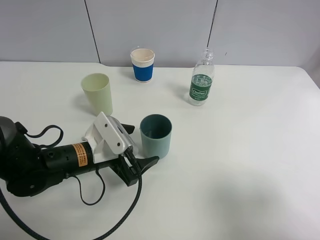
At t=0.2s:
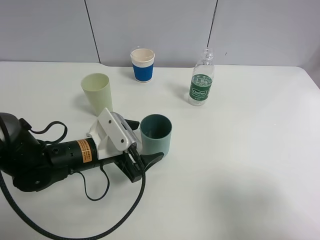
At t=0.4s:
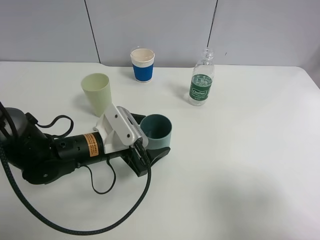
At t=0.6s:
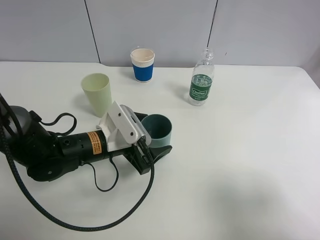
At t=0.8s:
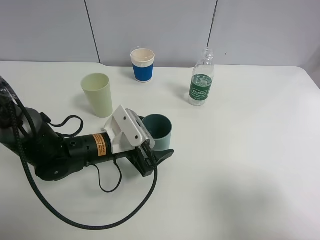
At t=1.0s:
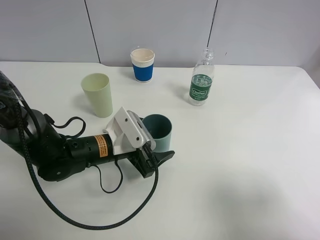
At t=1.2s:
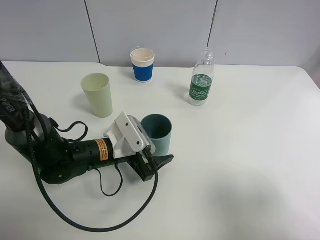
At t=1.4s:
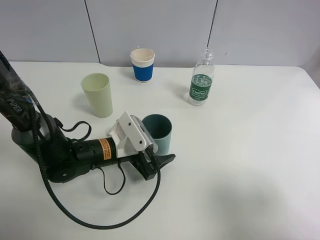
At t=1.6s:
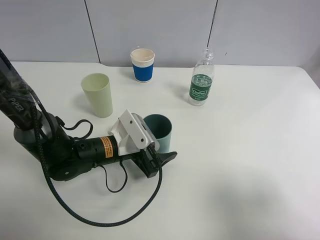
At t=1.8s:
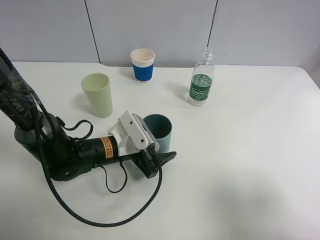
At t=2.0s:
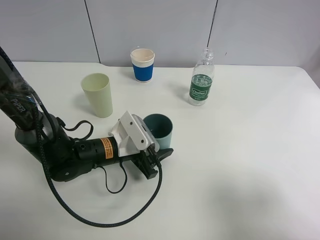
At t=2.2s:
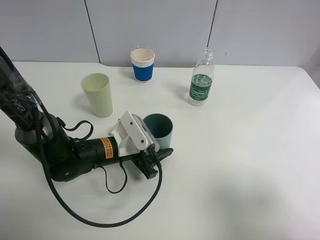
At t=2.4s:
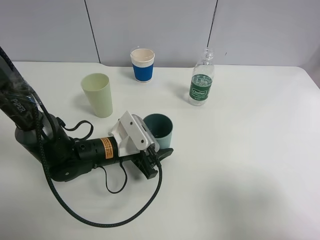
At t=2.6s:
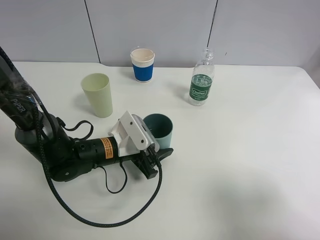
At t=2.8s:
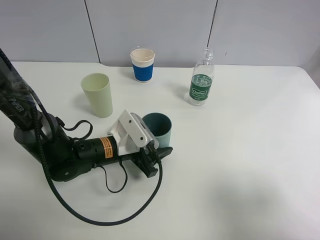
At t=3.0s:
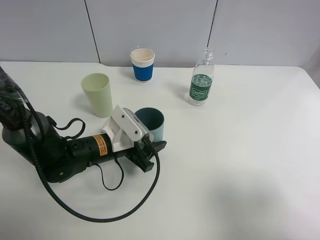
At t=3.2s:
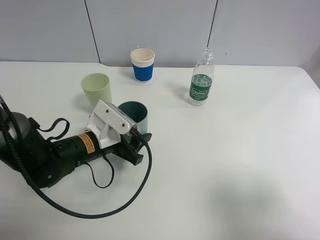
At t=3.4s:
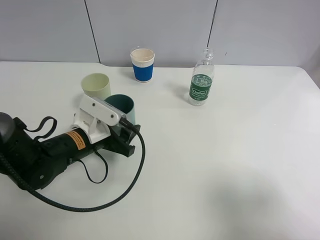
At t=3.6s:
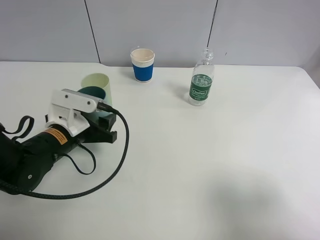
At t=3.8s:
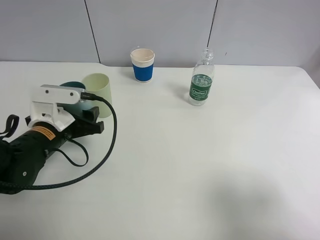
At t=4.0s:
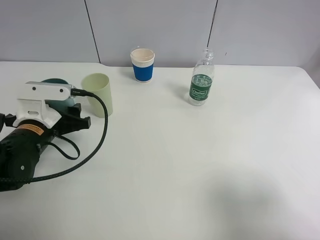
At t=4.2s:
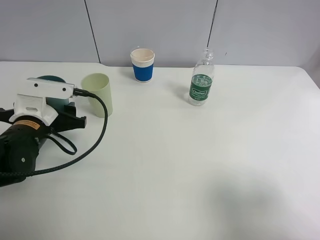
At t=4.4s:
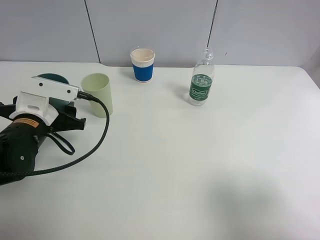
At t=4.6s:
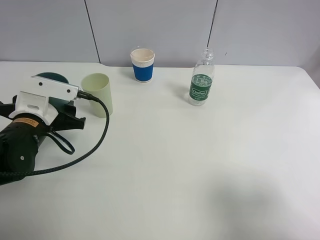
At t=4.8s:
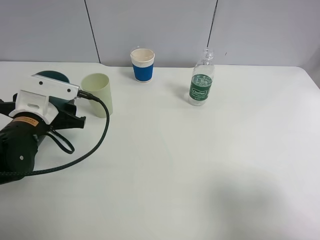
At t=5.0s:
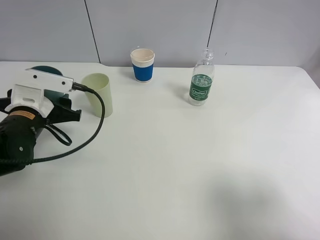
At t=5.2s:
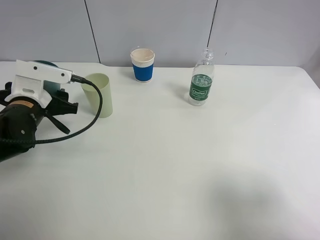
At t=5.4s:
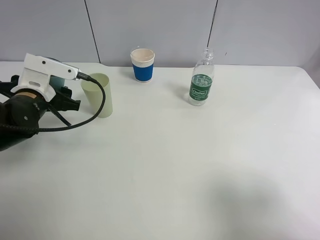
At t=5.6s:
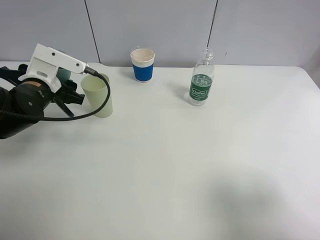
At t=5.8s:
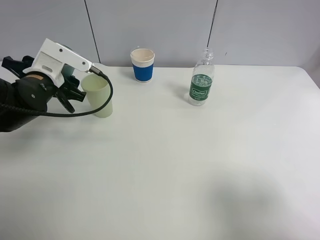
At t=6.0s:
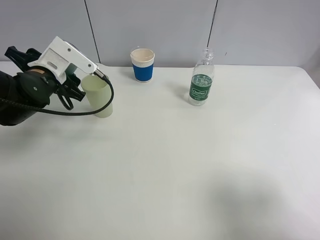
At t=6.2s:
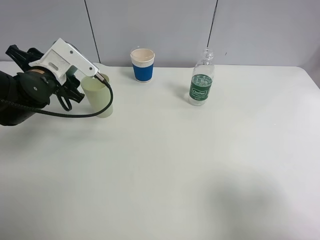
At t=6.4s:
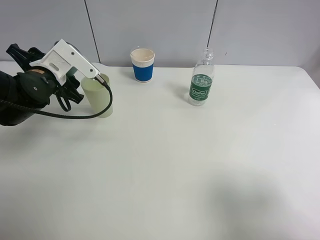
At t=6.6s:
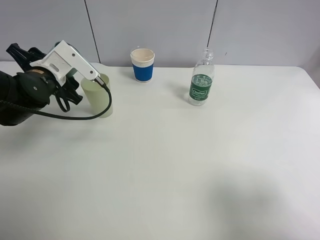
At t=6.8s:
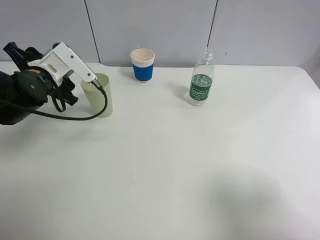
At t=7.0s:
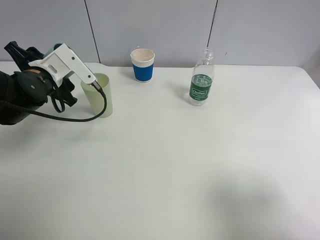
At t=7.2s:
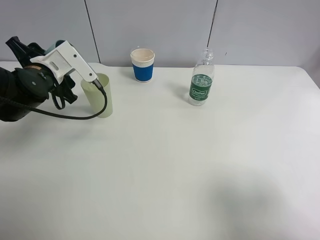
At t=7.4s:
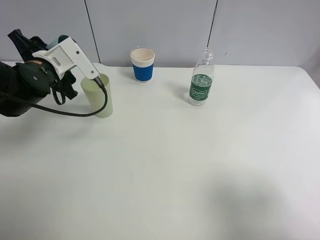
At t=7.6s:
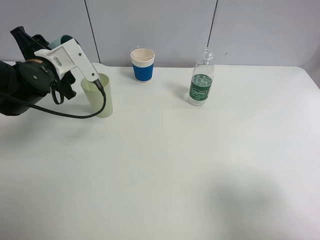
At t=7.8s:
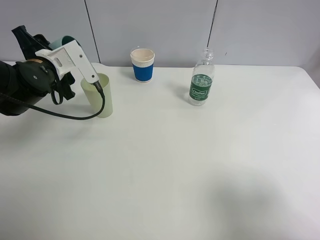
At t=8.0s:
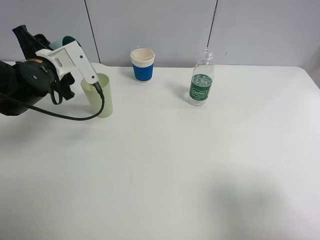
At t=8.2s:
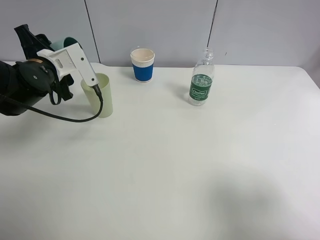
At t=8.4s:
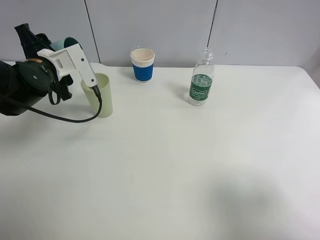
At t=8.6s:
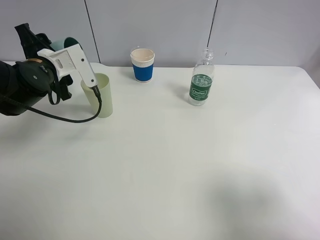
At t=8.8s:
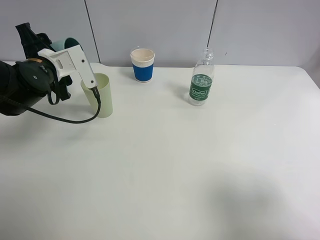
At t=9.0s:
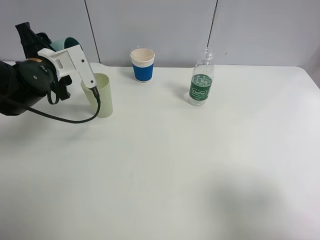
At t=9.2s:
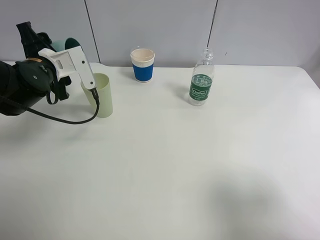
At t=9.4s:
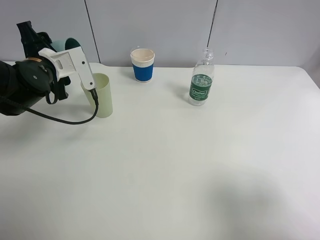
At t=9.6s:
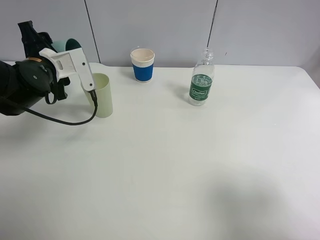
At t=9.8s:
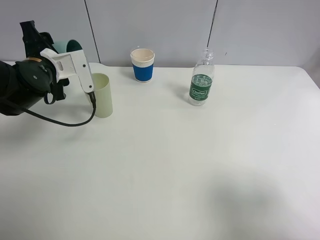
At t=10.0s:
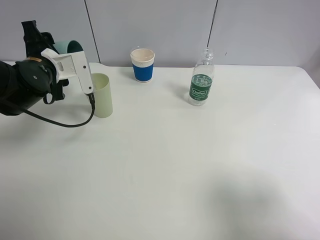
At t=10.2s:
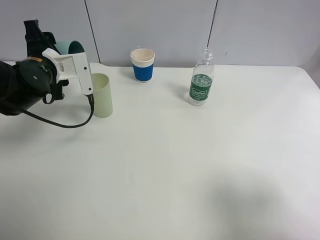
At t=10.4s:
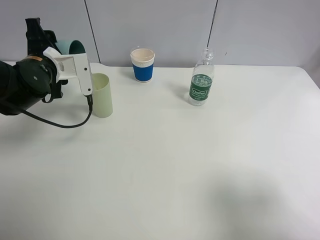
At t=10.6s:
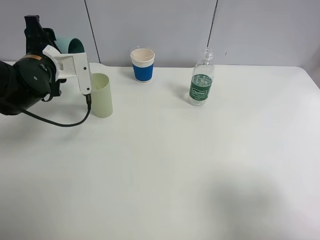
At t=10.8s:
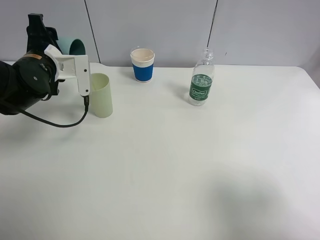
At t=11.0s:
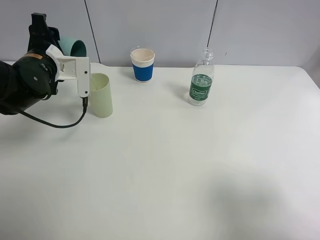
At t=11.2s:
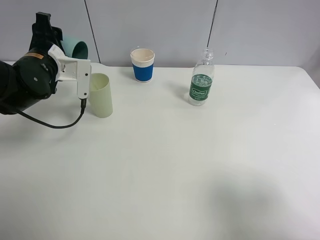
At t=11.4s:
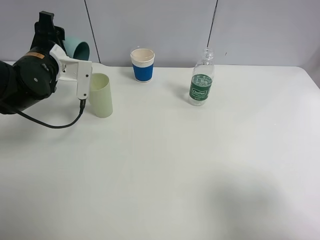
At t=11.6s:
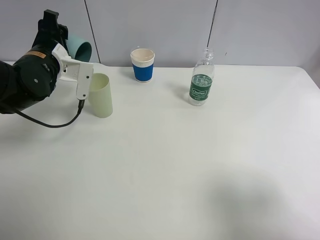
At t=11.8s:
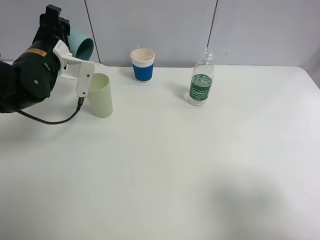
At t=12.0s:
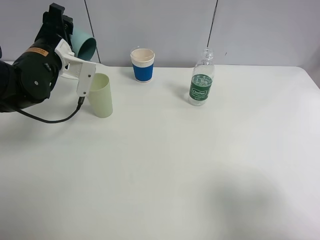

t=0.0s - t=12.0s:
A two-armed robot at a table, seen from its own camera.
Task of the whole recording: use a clamp to hold the bottle of the drink, pour the beverage into a random cup, then clamp the cup containing the drink and pour the drink into another random cup.
Step, t=0.0s - t=3.4s: Pick up the blue plastic cup bottle with left gripper.
t=0.0s - t=1.6s: The left gripper ends up some 5 cm from where it was.
t=1.6s - t=3.0s: The left gripper closes its fingers.
t=3.0s - t=4.4s: The left gripper moves to the left and upward, some 15 cm.
t=4.4s - t=6.0s: The left gripper travels forward by roughly 10 cm.
t=7.6s - t=9.0s: The grippers make only small movements.
t=9.0s - t=10.4s: There are only small adjustments of the grippers.

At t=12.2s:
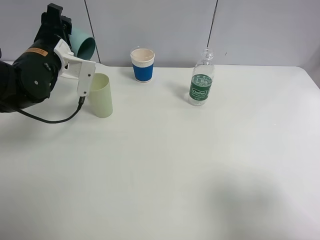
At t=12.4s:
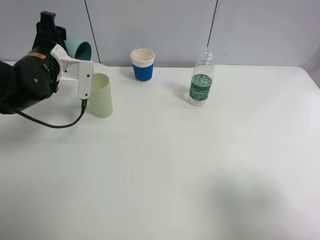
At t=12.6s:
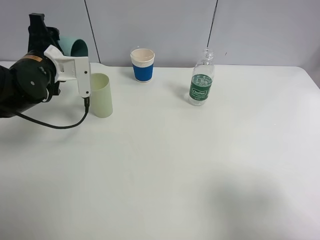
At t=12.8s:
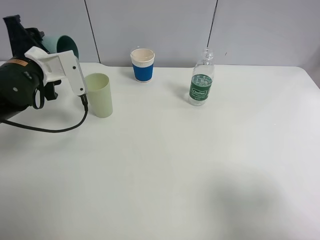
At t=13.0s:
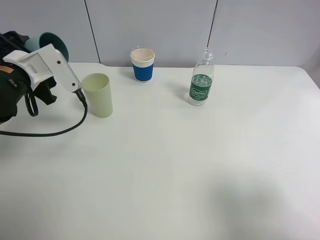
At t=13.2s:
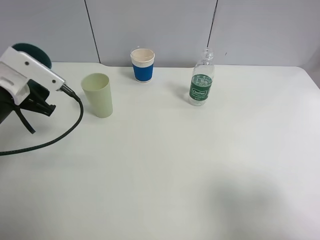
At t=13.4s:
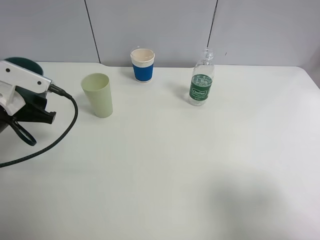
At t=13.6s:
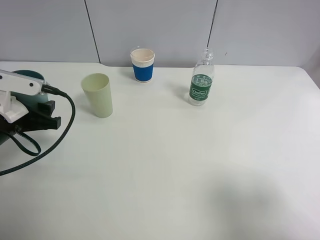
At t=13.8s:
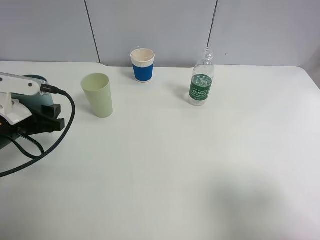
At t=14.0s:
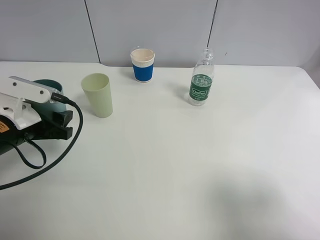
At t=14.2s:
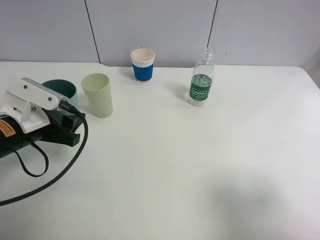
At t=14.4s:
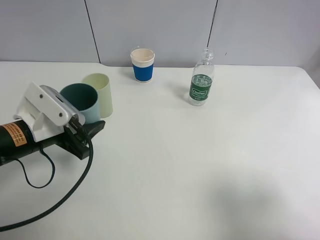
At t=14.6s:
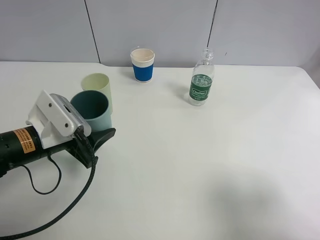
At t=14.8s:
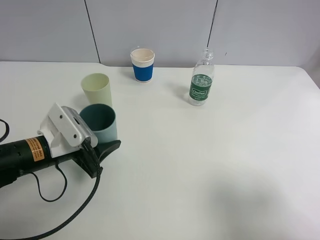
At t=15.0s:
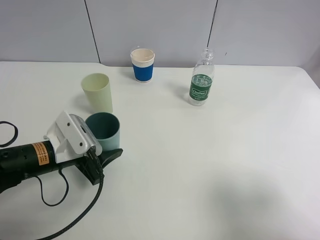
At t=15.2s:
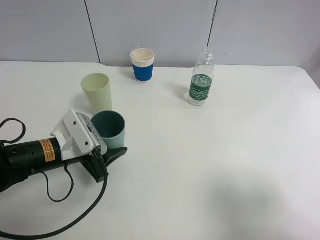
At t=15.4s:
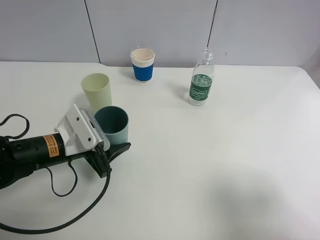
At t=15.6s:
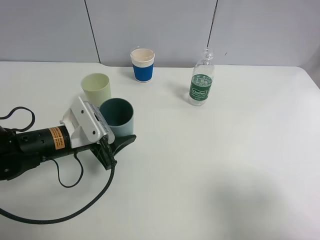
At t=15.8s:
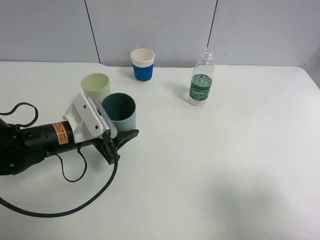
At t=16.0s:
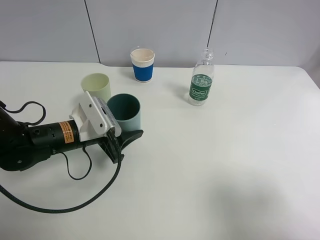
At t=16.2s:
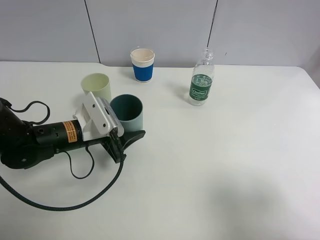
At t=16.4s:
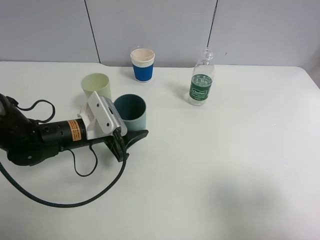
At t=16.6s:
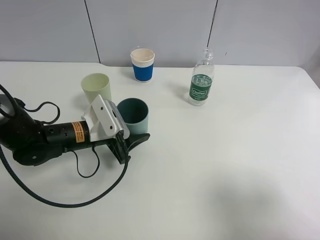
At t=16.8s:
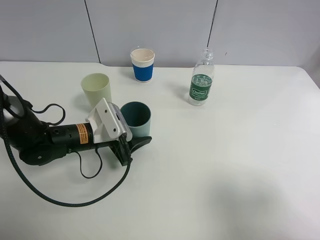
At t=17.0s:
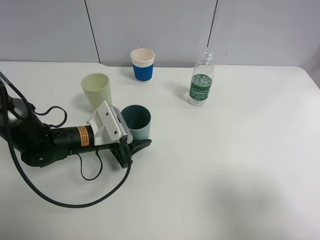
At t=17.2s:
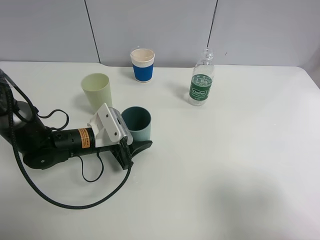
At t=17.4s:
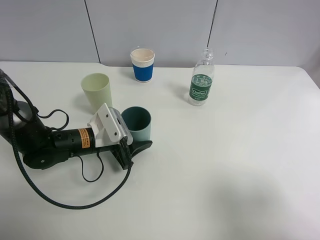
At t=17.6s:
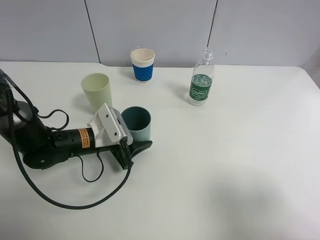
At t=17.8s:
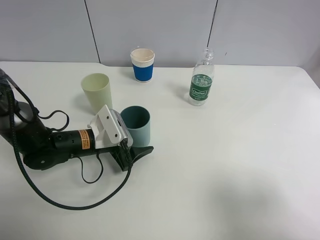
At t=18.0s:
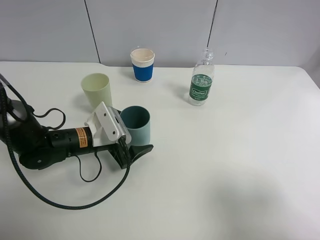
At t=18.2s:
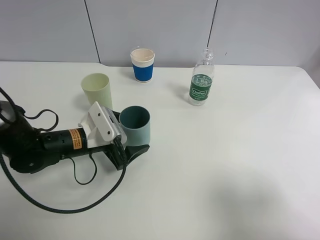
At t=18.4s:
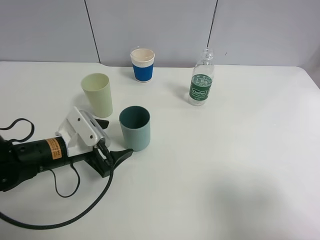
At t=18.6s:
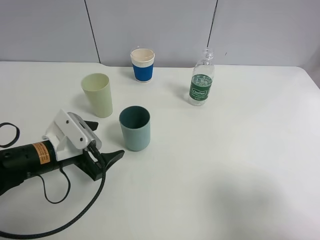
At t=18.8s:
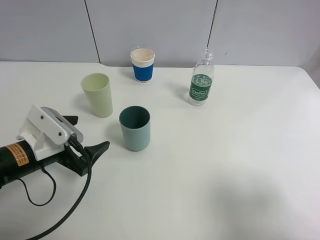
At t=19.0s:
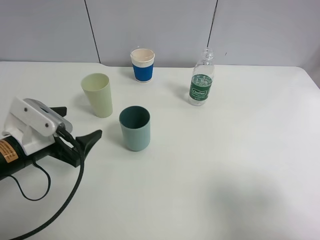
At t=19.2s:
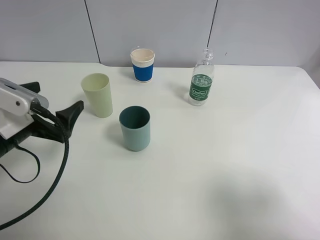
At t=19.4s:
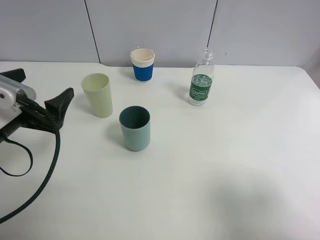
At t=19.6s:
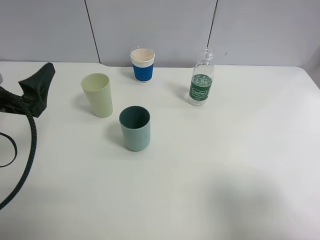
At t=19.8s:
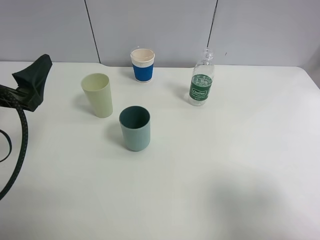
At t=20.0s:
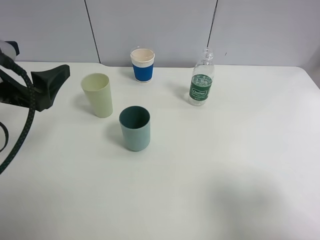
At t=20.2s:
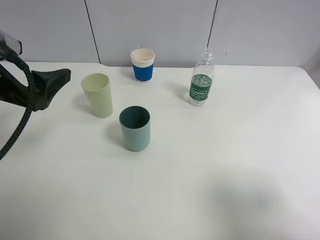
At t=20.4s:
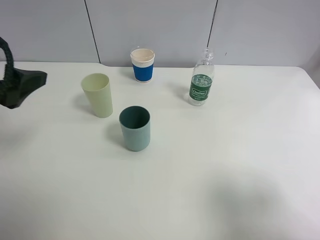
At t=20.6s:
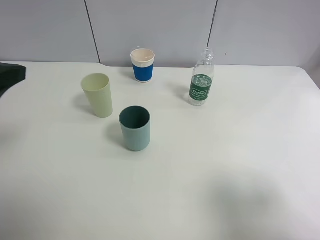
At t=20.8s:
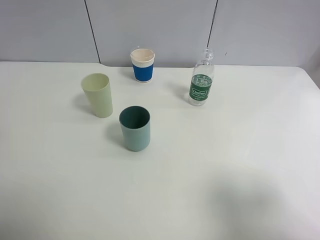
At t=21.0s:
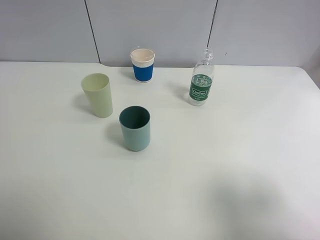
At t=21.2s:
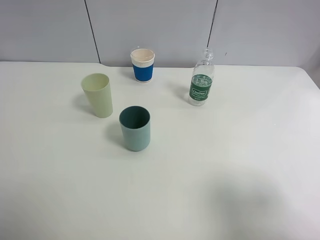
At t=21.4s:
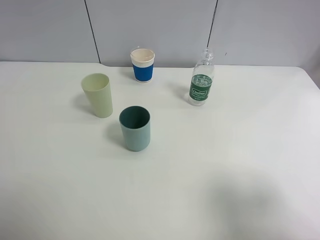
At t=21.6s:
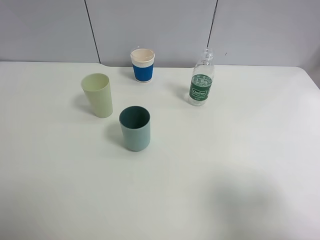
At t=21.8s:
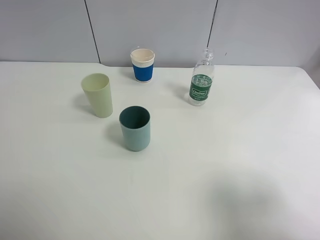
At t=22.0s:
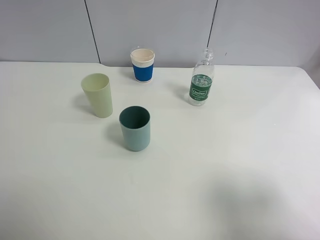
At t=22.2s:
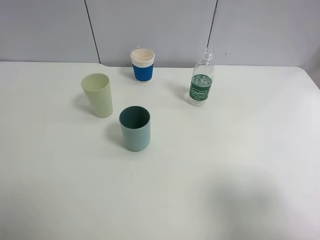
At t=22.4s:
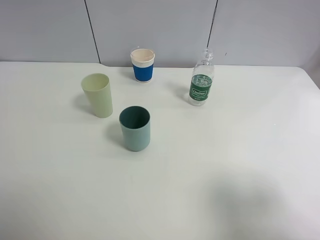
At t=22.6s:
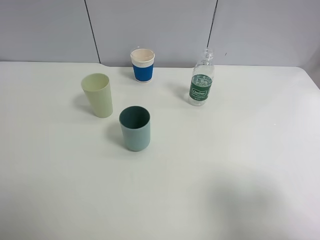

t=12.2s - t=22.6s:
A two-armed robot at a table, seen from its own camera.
Task of the whole recording: use a clamp to hold the bottle of the drink, pour the beverage into a random cup, then clamp the cup containing the drink and pour the drink into another random cup.
Step, t=13.2s - t=18.4s: Place the blue plastic cup on the table with left gripper.
t=12.2s - t=13.6s: The left gripper shifts roughly 10 cm backward.
t=13.6s - t=15.2s: The left gripper moves to the right and downward, approximately 10 cm.
t=15.2s - t=16.6s: The left gripper shifts some 5 cm forward.
t=16.6s - t=18.2s: The left gripper opens its fingers.
t=18.2s - t=19.6s: The left gripper heads upward, to the left and backward, covering roughly 20 cm.
t=19.6s - t=21.2s: The left gripper travels upward, backward and to the left by about 15 cm.
